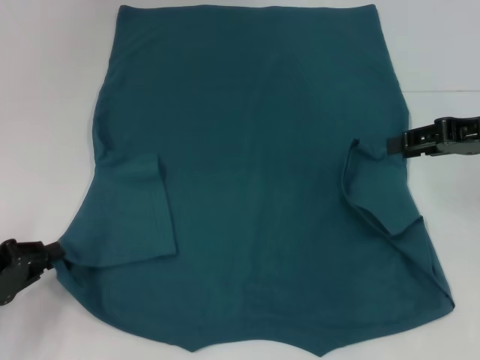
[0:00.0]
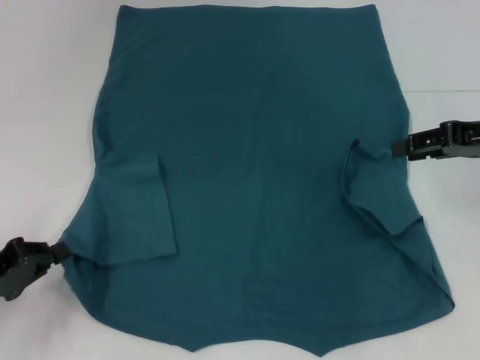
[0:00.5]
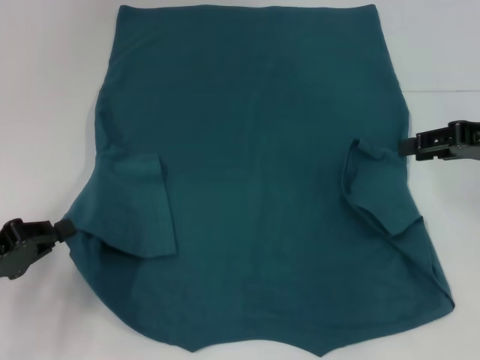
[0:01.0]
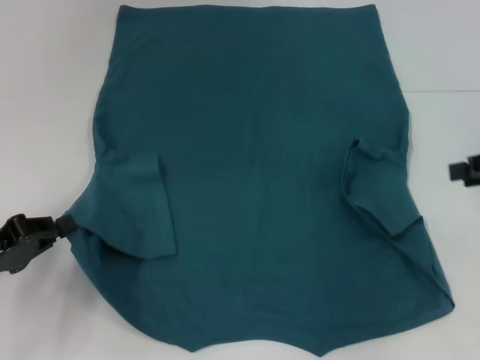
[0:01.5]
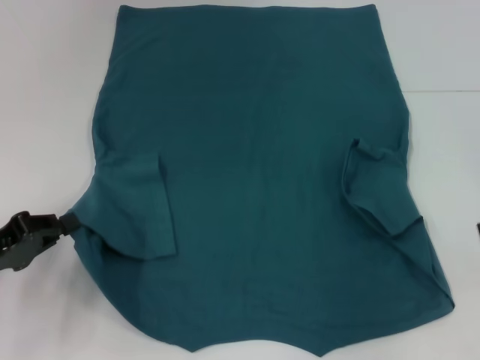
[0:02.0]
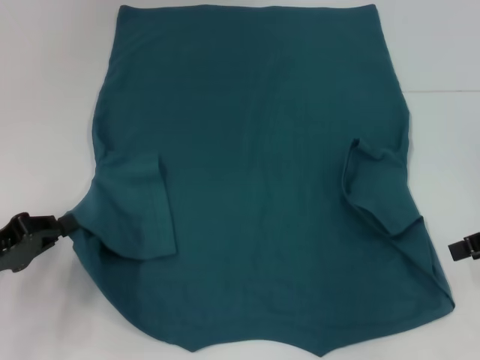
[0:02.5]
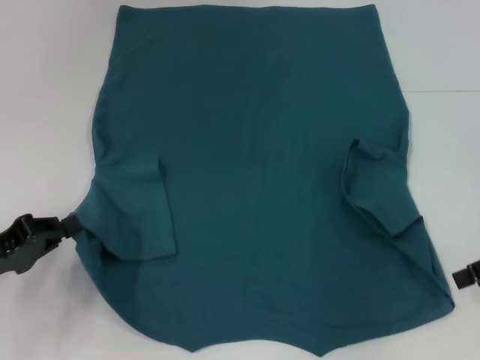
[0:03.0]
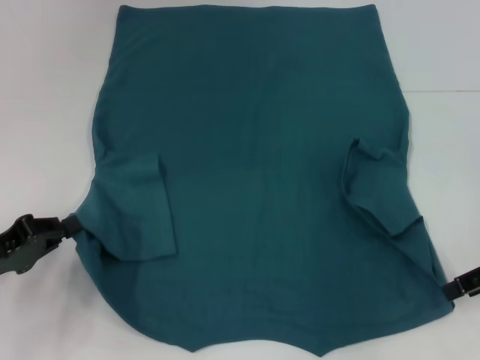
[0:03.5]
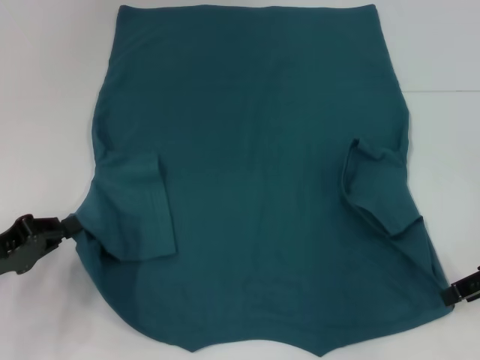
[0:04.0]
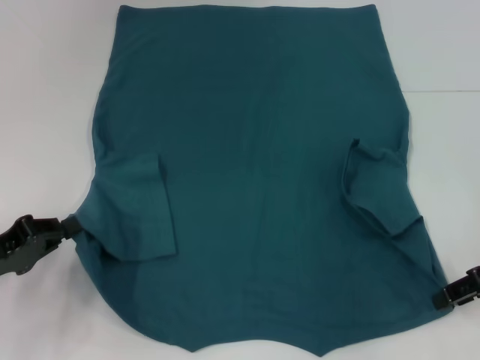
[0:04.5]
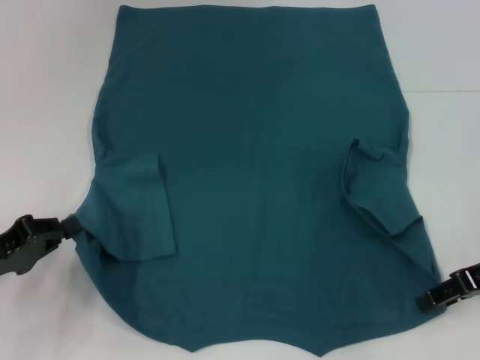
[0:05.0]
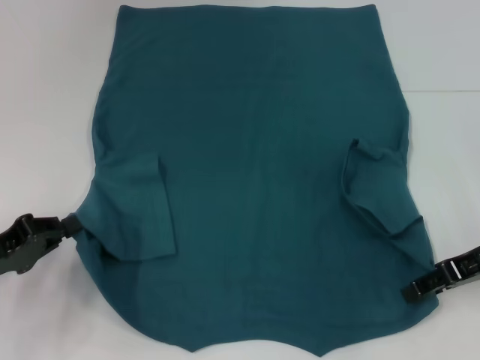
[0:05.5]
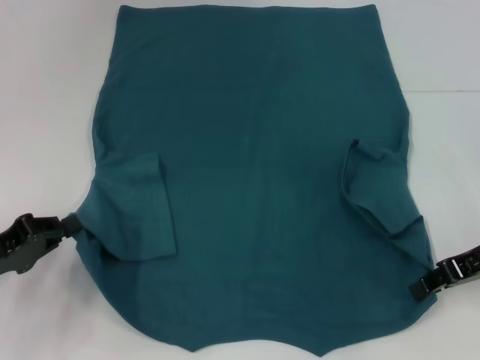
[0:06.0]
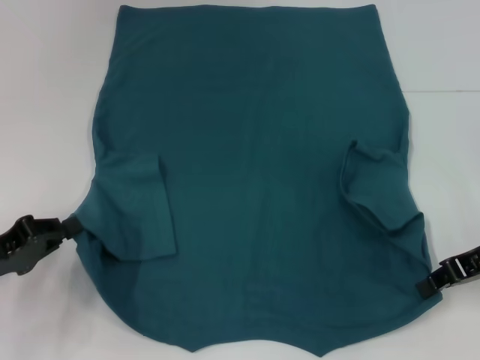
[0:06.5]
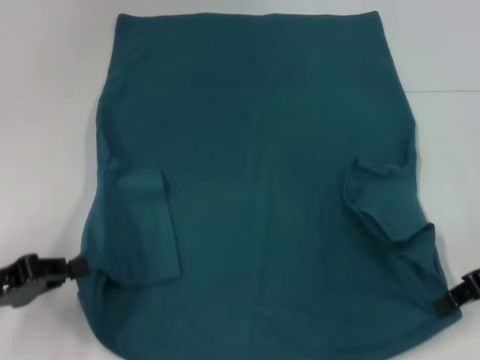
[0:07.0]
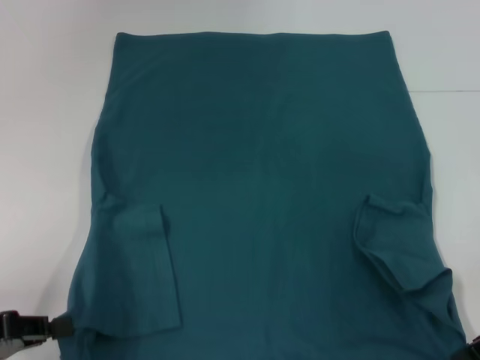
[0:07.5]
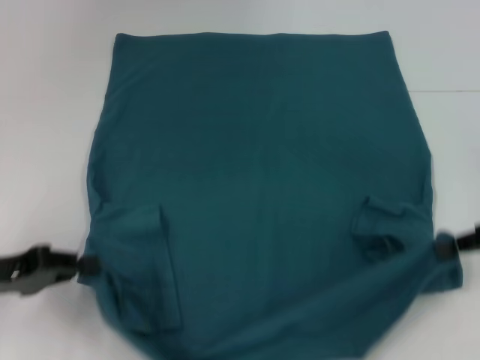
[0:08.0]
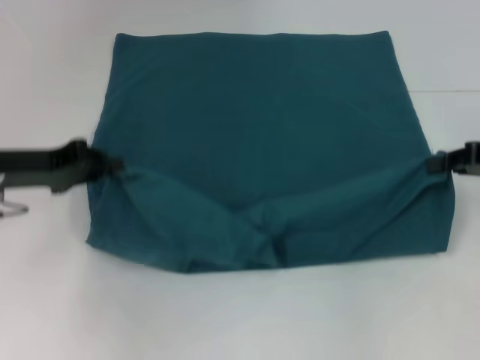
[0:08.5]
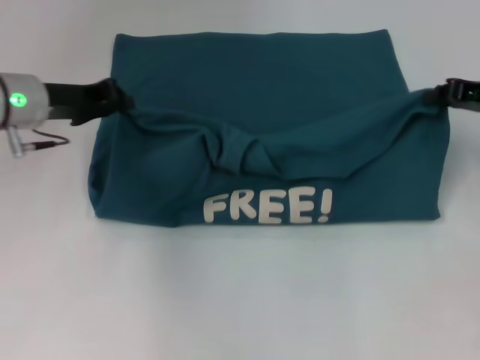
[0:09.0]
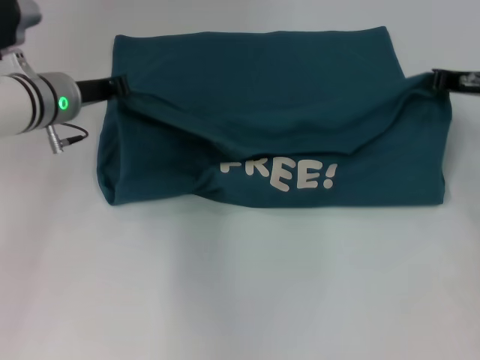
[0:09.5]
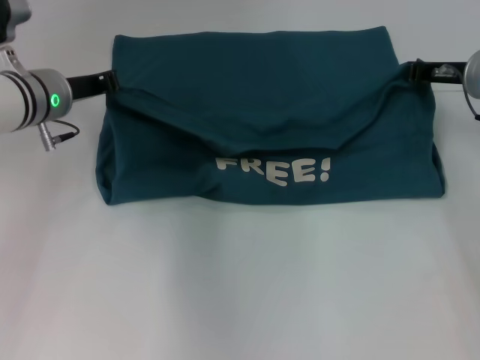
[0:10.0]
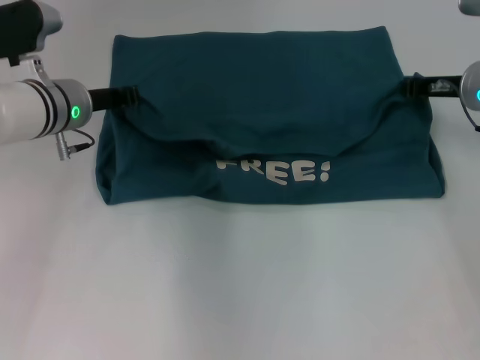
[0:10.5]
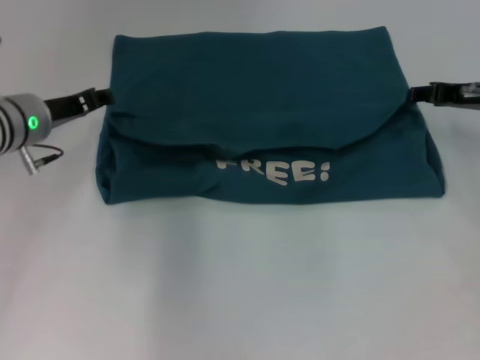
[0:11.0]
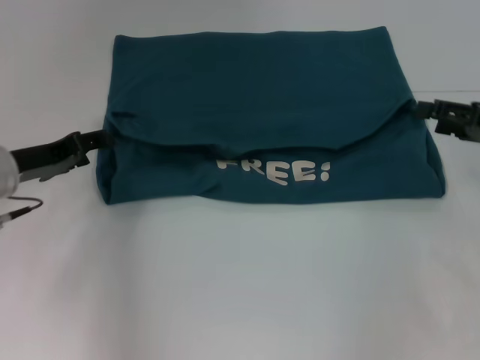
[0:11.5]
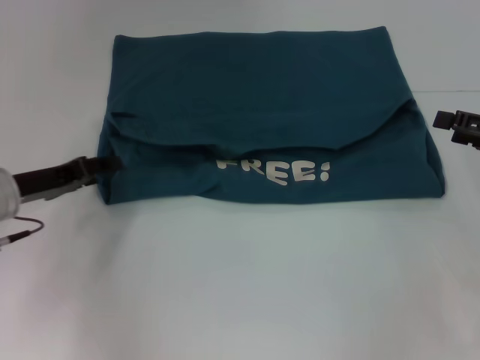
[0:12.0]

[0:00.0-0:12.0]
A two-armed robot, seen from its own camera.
Step, 0:00.5 to 0:06.5: Grab the bottom right corner with your right hand.
Step, 0:07.0 to 0:11.0: Fold the clothes to the left.
Step, 0:07.0 to 0:11.0: Fold the clothes to the right.
0:00.0 to 0:02.0: The left gripper closes its fingers. Meanwhile the right gripper shifts some 10 cm to the right and backward.
0:02.0 to 0:04.0: The right gripper moves approximately 5 cm.
0:04.0 to 0:06.0: The grippers move only a little.
0:06.0 to 0:08.0: The right gripper ends up approximately 5 cm from where it was, and closes up.
0:08.0 to 0:10.0: The left gripper travels forward and to the right by about 20 cm. Meanwhile the right gripper goes about 15 cm forward and to the left.
0:10.0 to 0:12.0: The right gripper is displaced backward and to the right by roughly 15 cm, and opens up. The left gripper moves backward, to the left and downward, approximately 10 cm, and opens its fingers.

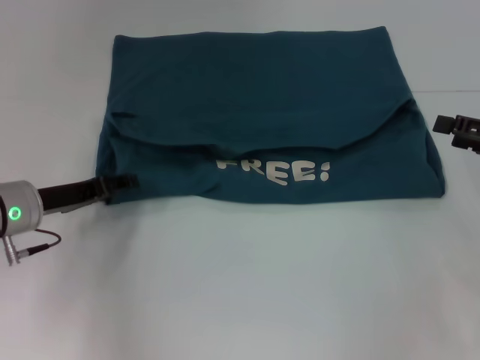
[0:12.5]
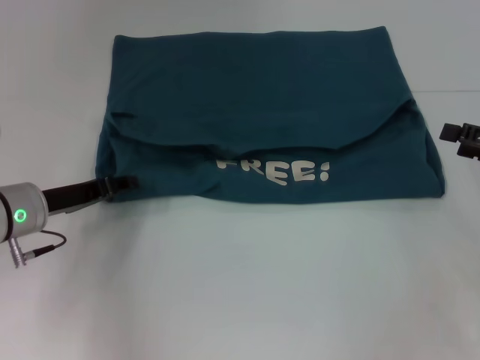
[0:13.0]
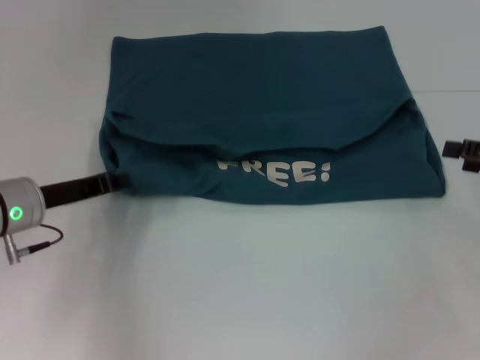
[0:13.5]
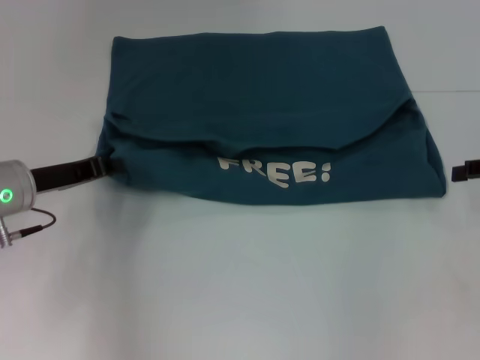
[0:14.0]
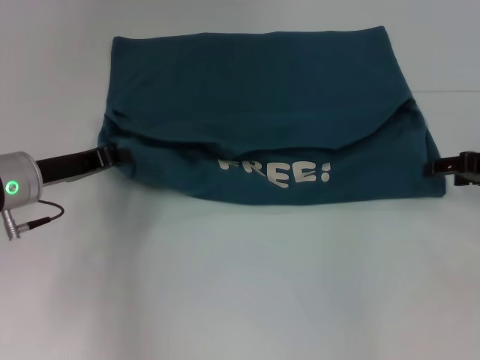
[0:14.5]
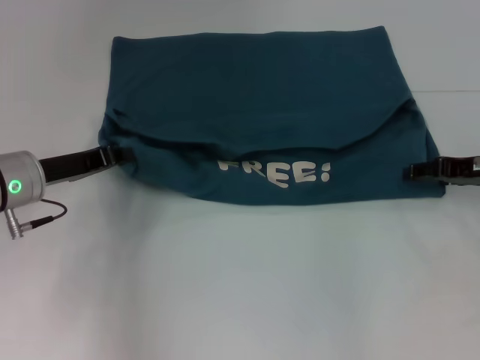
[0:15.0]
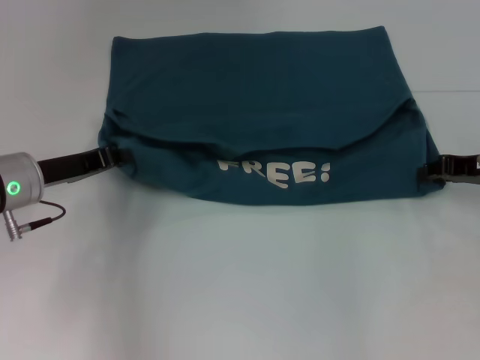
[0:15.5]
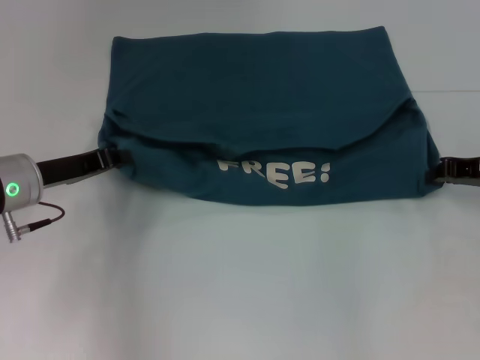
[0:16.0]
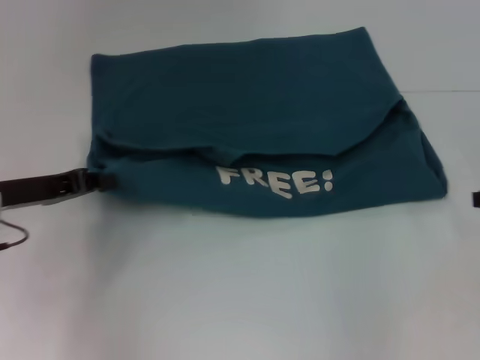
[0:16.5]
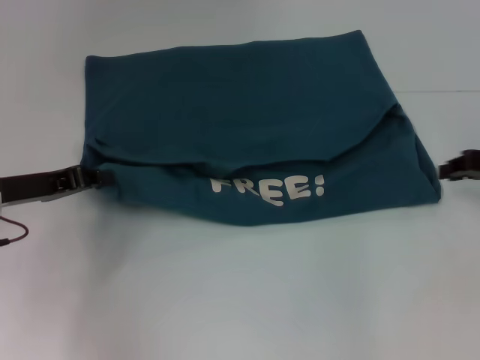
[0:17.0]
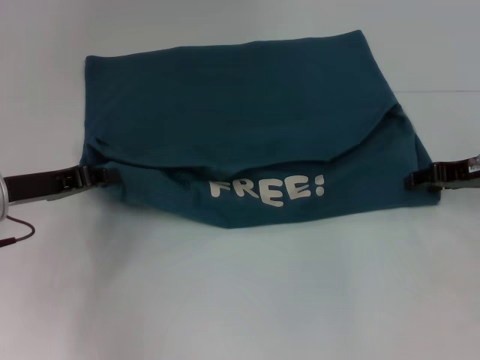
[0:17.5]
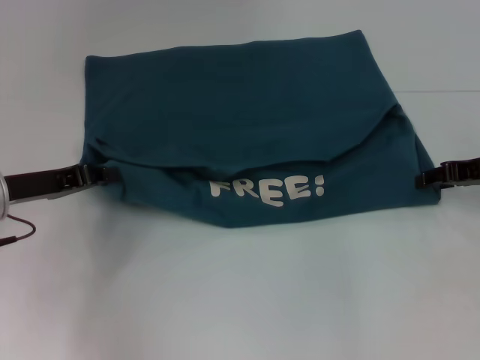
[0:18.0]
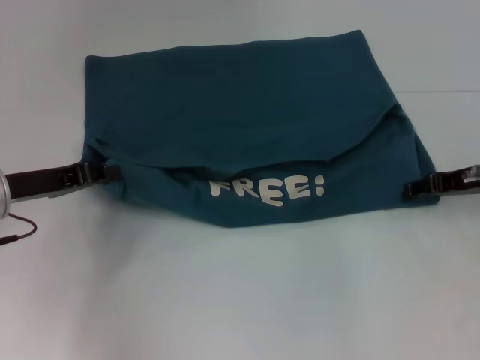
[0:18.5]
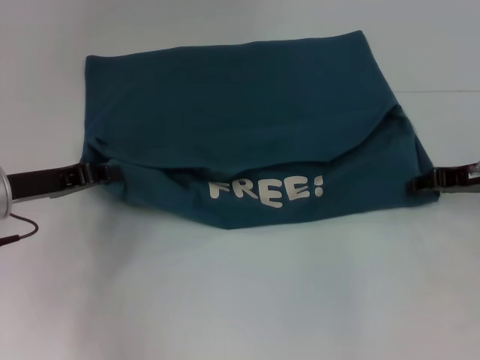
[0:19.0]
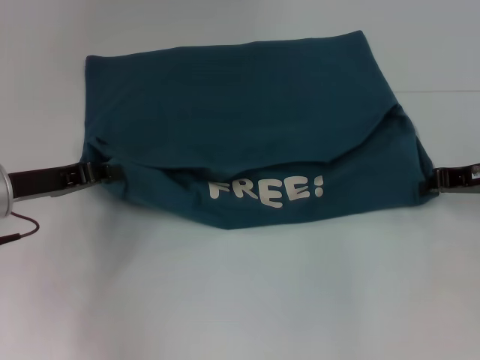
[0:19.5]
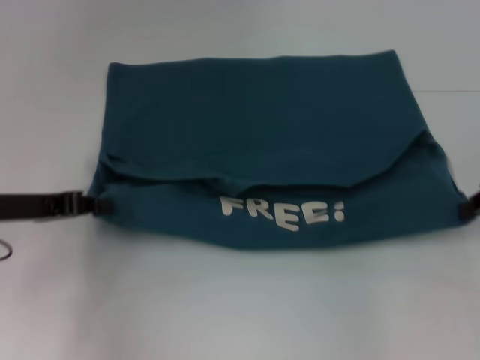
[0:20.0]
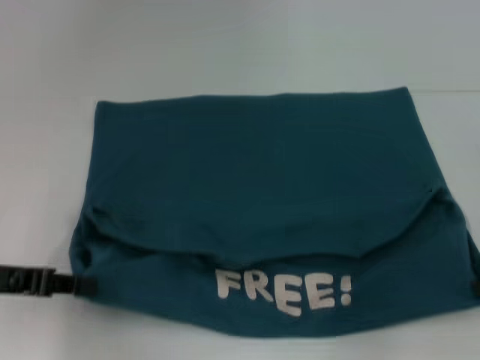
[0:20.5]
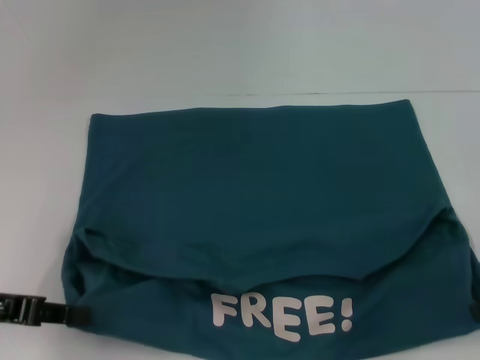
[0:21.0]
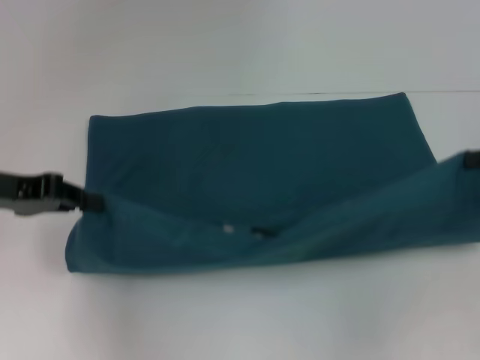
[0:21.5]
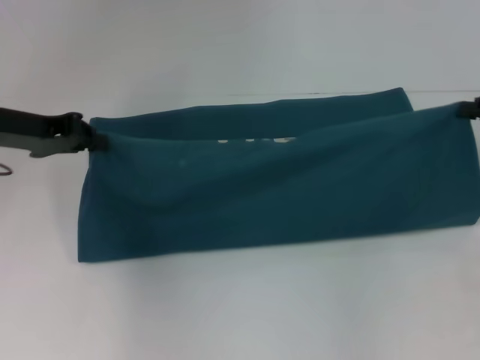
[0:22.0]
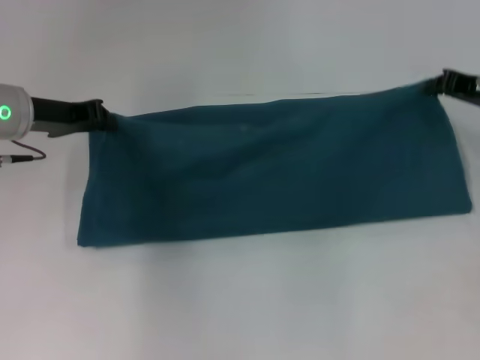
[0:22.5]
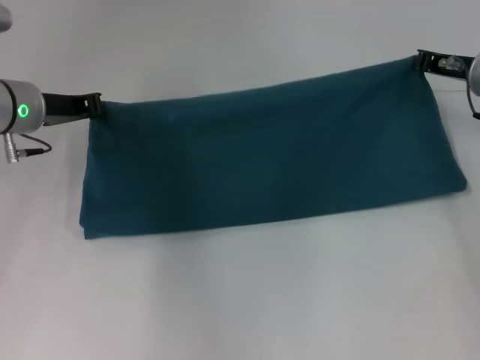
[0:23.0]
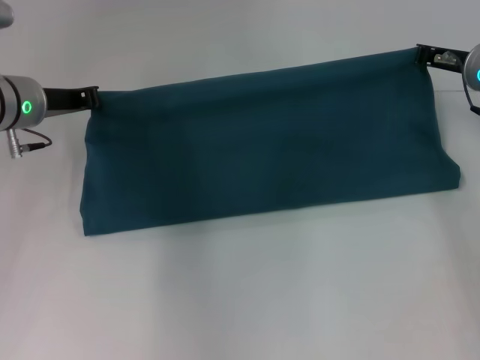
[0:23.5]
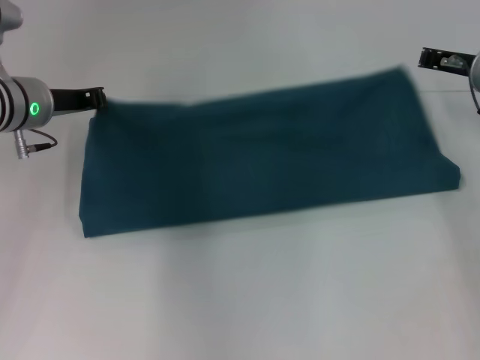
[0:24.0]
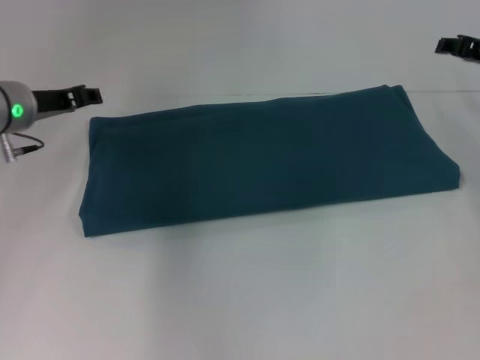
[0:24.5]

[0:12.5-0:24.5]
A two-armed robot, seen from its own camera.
Step, 0:12.5 to 0:20.5: Pull the clothes with your left hand.
Step, 0:12.5 to 0:20.5: Pull the clothes with your right hand.
Step, 0:21.0 to 0:24.0: Fold the clothes to the right.
0:12.5 to 0:14.5: The left gripper closes up.
0:14.5 to 0:16.5: The right gripper closes its fingers.
0:16.5 to 0:18.5: The right gripper travels to the left by roughly 5 cm, and opens up.
0:18.5 to 0:20.5: The left gripper goes some 5 cm backward, while the right gripper moves backward and to the right, approximately 10 cm, and closes its fingers.
0:20.5 to 0:22.5: The two grippers go approximately 15 cm forward.
0:22.5 to 0:24.5: The right gripper opens.

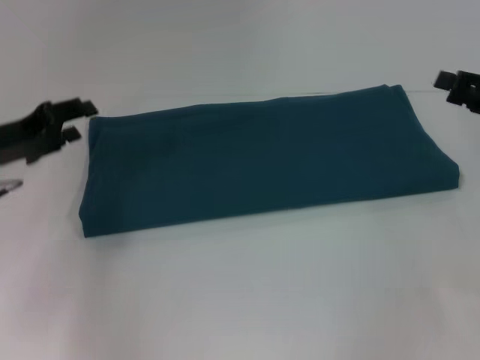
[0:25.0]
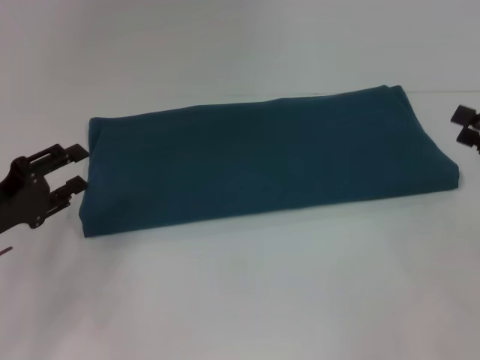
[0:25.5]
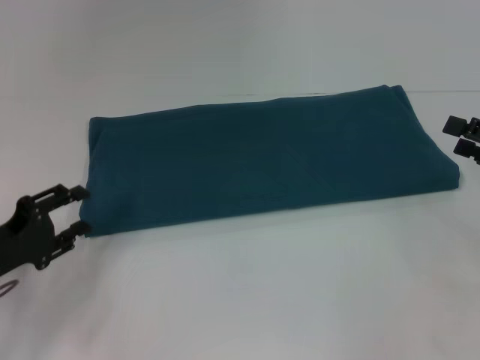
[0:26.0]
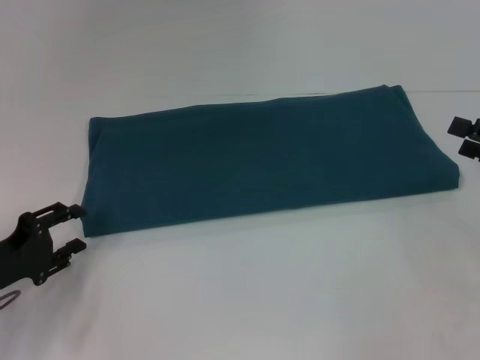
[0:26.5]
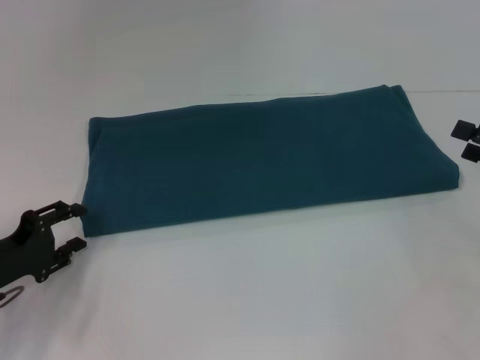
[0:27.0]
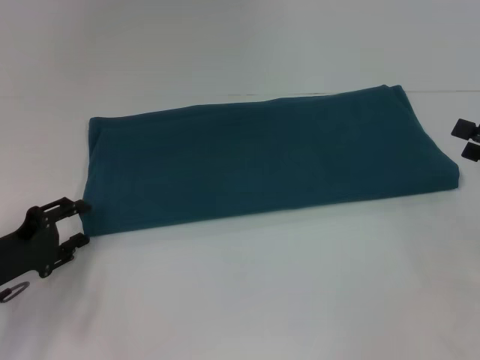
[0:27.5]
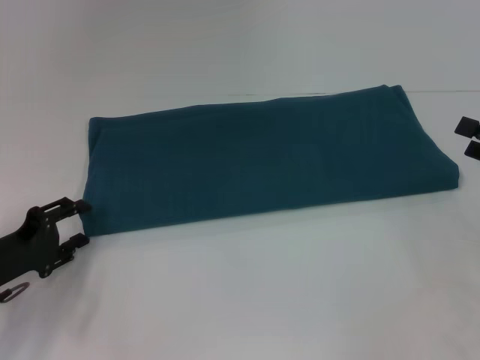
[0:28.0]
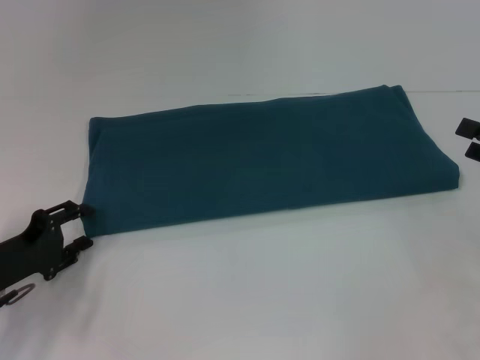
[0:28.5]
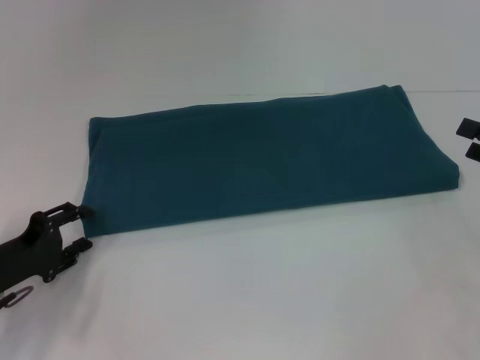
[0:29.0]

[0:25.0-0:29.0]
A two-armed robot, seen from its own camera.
0:25.0 to 0:27.0: The right gripper shifts approximately 5 cm backward, and opens its fingers. Meanwhile the left gripper is displaced backward and downward by some 15 cm.
0:27.0 to 0:29.0: Both grippers stay put.
